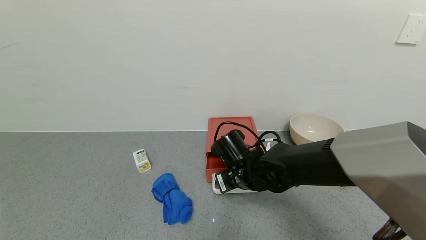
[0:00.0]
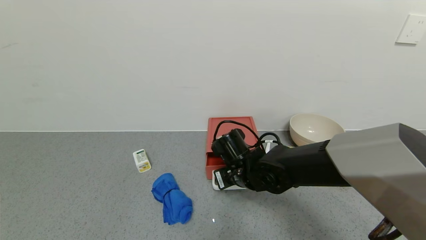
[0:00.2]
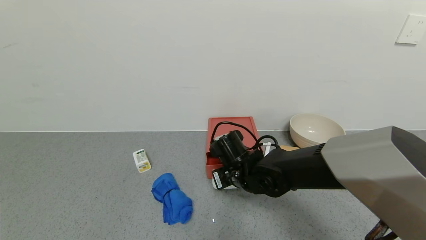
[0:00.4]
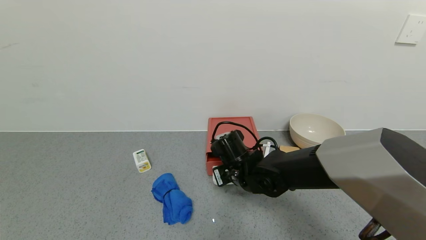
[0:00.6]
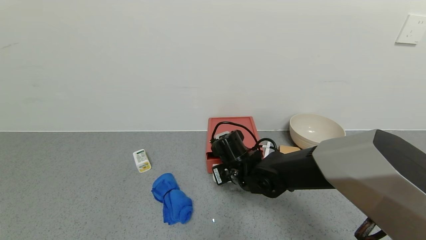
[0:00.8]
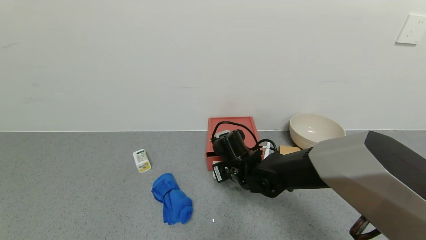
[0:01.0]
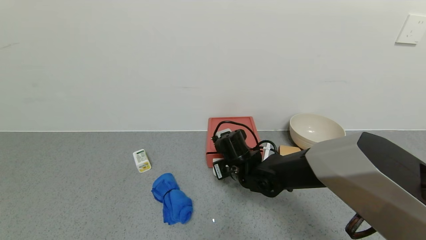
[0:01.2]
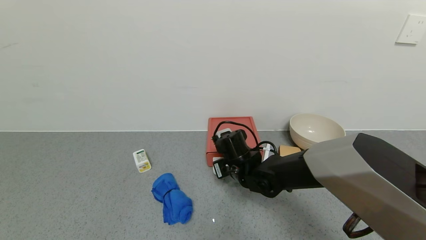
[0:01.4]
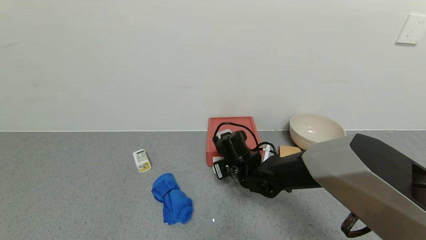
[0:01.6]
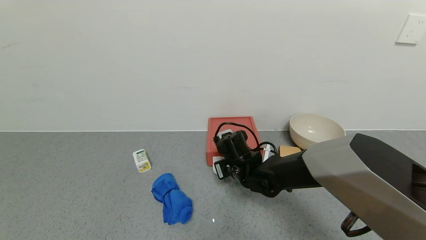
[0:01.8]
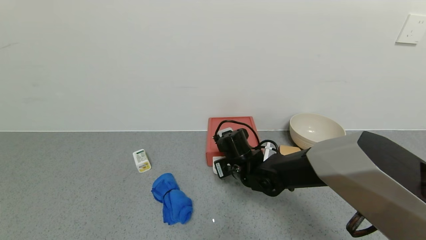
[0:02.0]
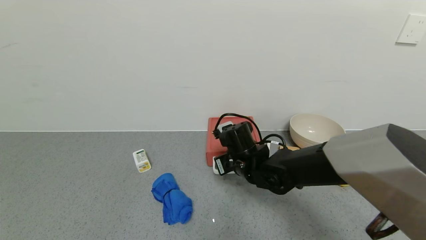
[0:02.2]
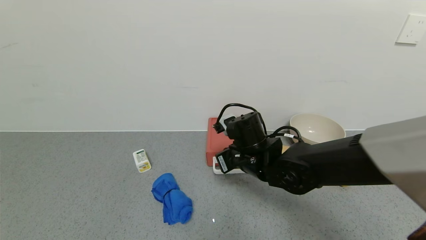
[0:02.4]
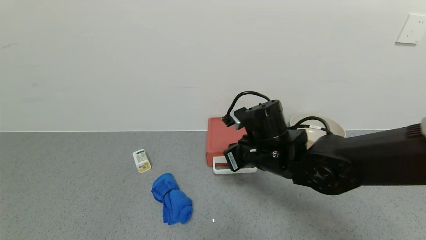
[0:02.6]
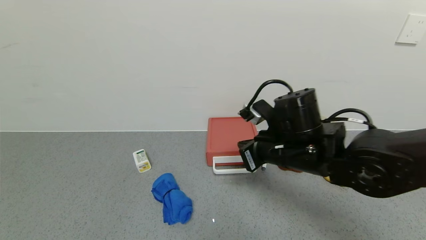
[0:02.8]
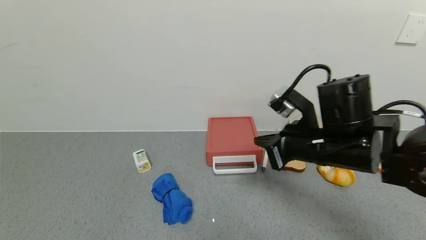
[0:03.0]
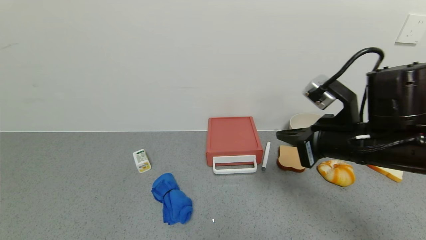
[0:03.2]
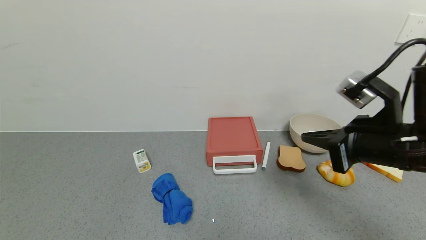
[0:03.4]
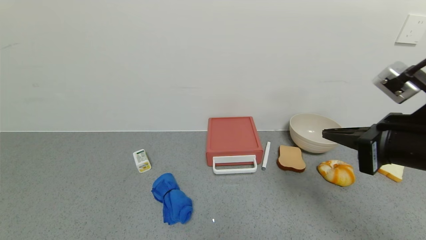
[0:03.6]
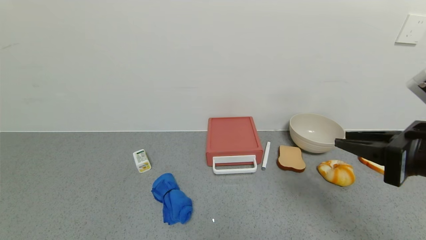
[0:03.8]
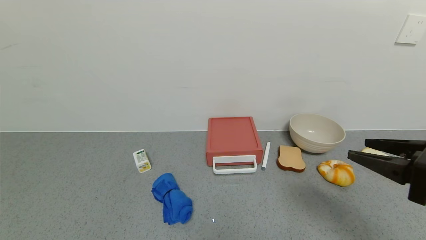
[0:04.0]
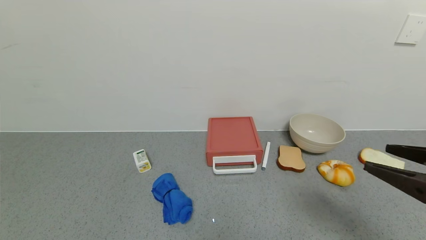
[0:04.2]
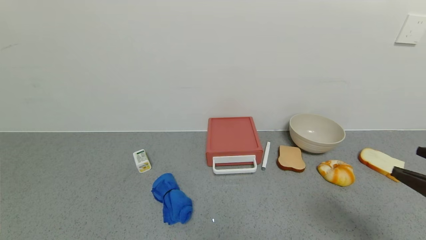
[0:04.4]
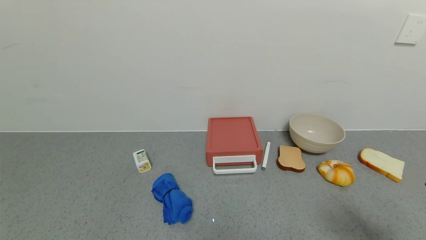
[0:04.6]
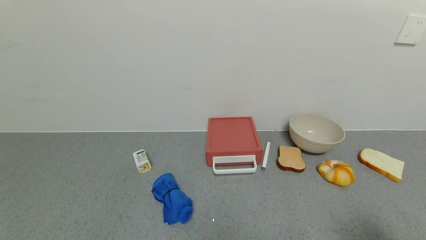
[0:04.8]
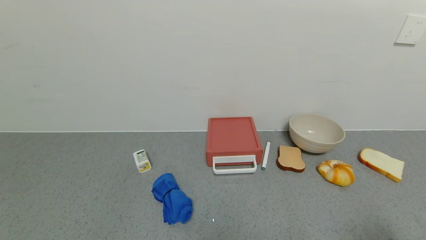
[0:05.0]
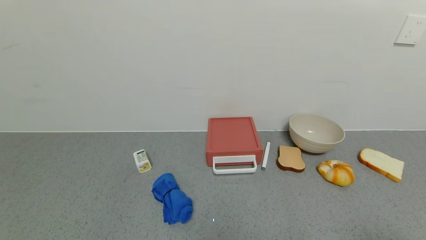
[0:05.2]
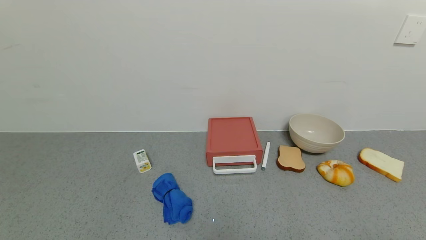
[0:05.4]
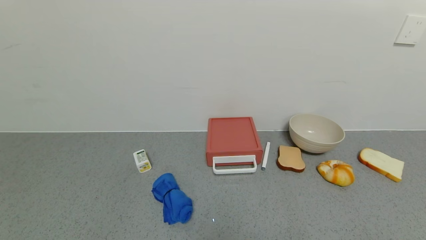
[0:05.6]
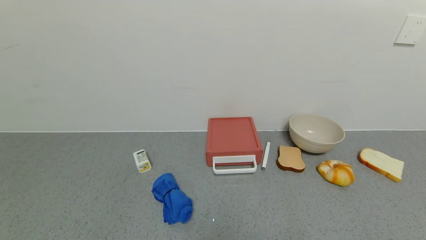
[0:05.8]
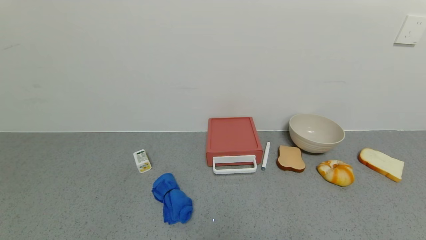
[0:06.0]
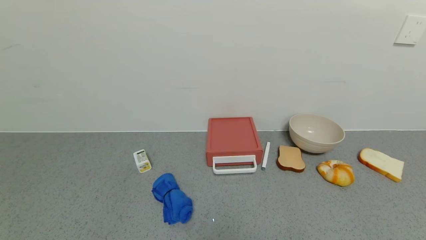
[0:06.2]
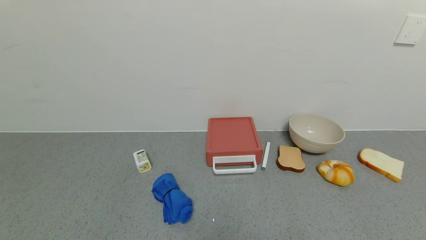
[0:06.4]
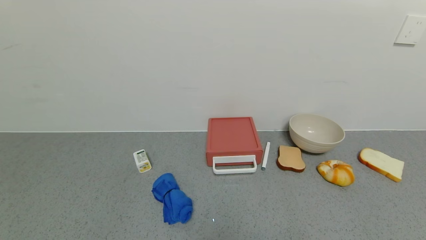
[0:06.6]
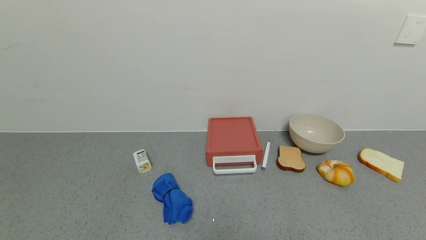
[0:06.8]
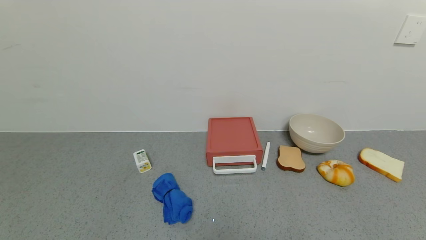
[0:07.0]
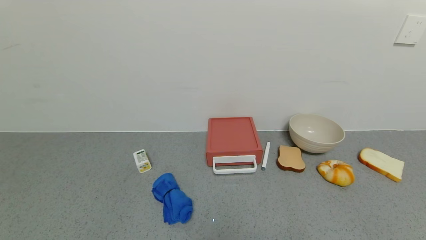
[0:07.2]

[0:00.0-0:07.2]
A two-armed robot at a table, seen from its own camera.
Task of the whole recording: use the gripper to open the drawer and close the red drawer.
Step, 0:00.0 to 0:02.8: Close the red drawer with the right gripper.
0:00.0 to 0:01.4: The grippers move only a little.
0:01.4 to 0:02.8: The right gripper travels upward, backward and to the right by approximately 15 cm.
0:02.8 to 0:04.4: The right gripper shifts roughly 25 cm to the right and backward, and opens its fingers.
0:04.4 to 0:05.8: The right gripper is displaced backward by roughly 15 cm.
